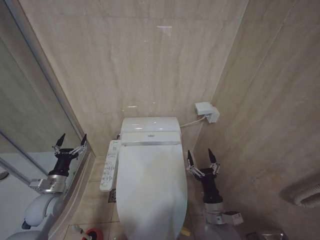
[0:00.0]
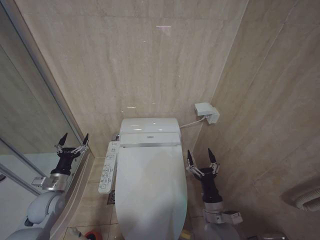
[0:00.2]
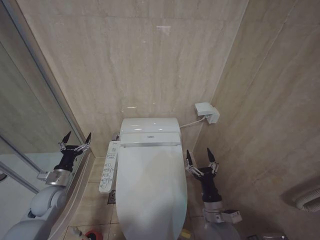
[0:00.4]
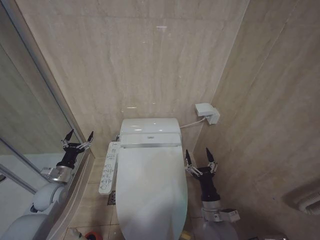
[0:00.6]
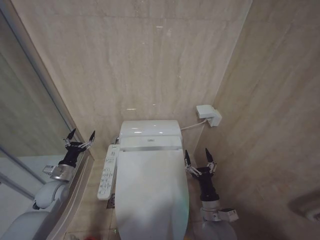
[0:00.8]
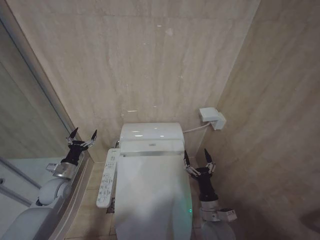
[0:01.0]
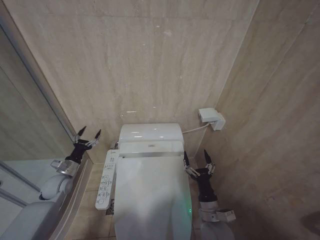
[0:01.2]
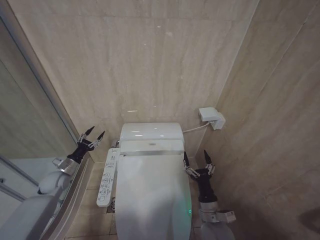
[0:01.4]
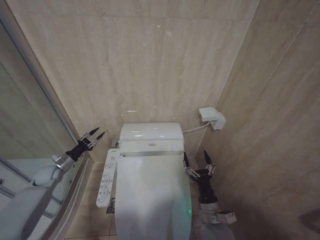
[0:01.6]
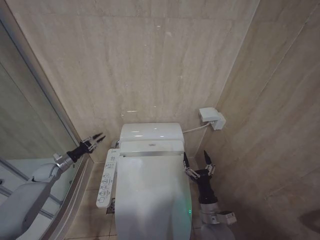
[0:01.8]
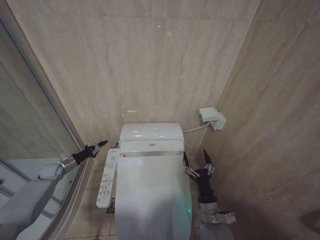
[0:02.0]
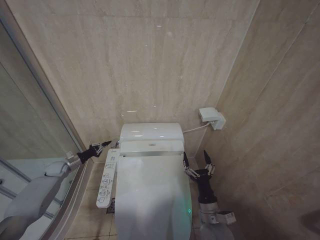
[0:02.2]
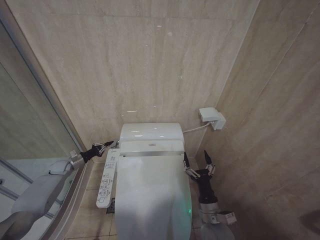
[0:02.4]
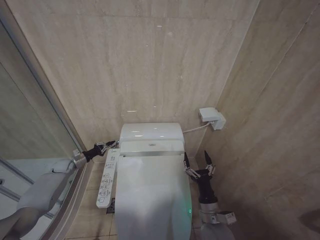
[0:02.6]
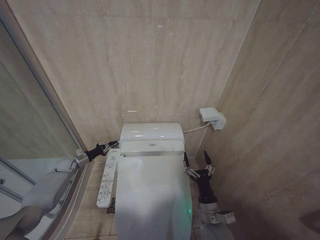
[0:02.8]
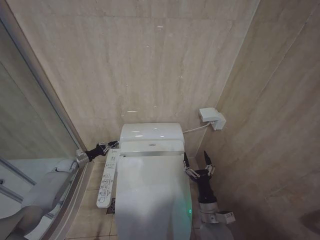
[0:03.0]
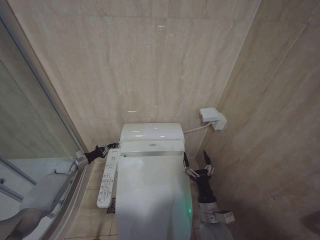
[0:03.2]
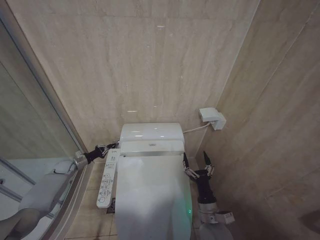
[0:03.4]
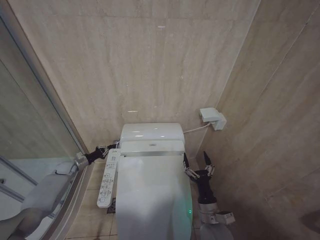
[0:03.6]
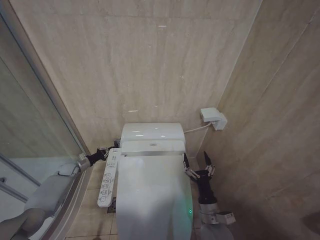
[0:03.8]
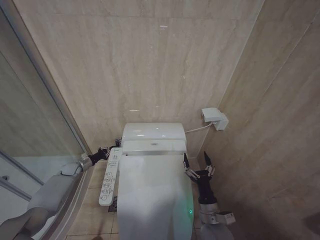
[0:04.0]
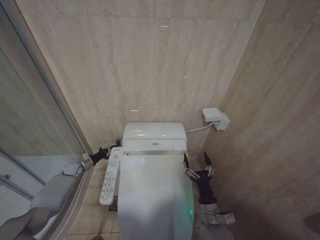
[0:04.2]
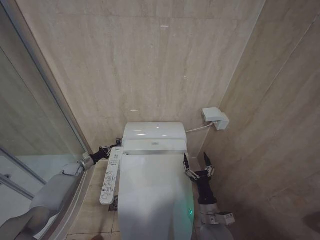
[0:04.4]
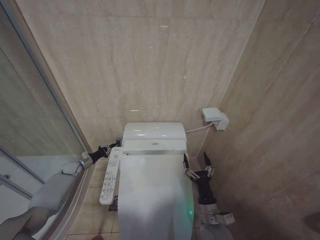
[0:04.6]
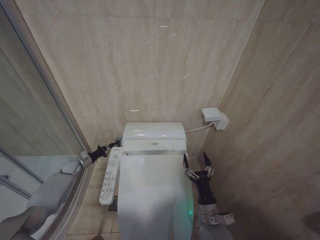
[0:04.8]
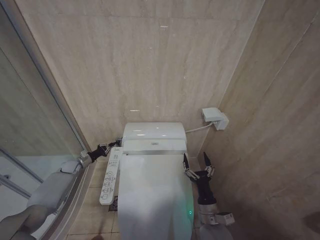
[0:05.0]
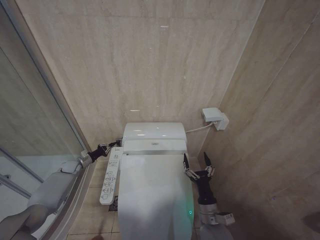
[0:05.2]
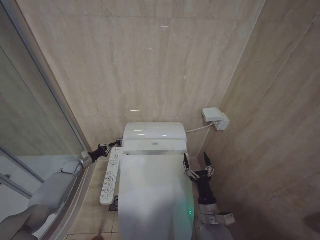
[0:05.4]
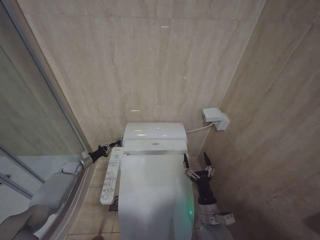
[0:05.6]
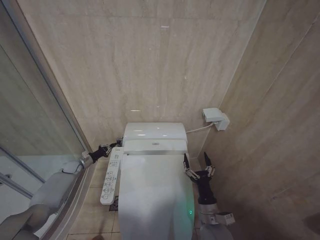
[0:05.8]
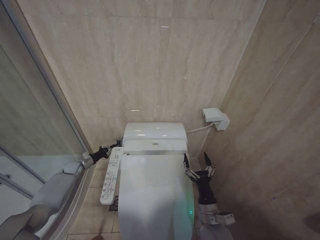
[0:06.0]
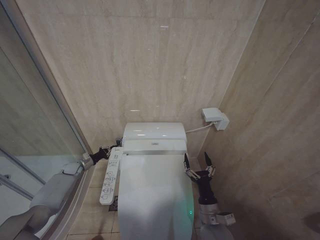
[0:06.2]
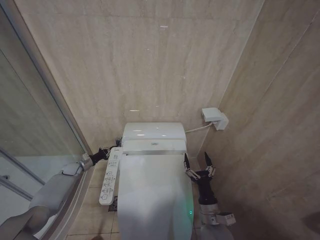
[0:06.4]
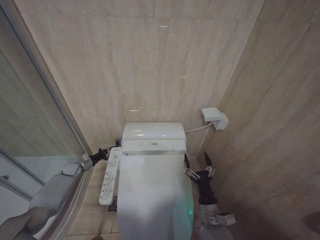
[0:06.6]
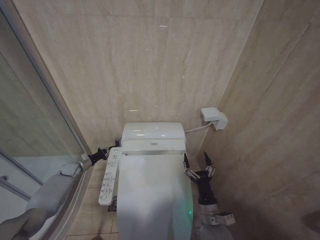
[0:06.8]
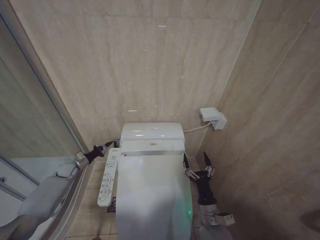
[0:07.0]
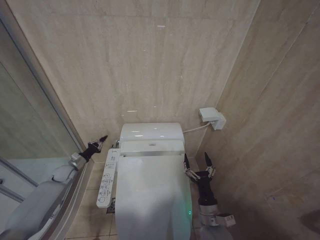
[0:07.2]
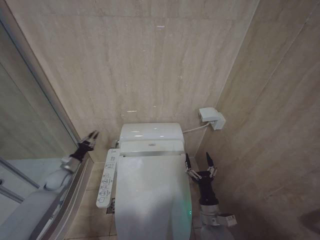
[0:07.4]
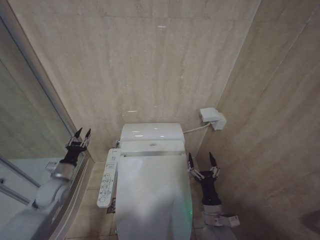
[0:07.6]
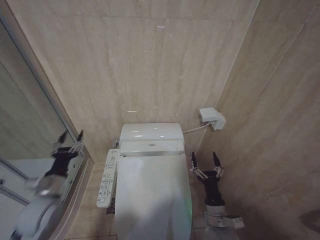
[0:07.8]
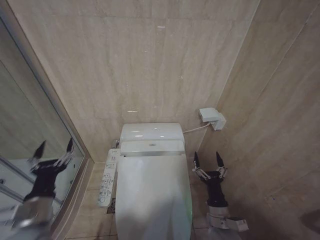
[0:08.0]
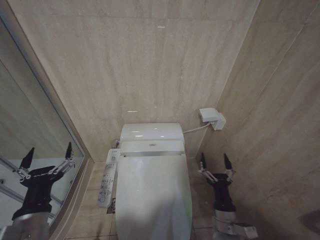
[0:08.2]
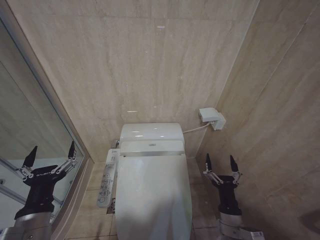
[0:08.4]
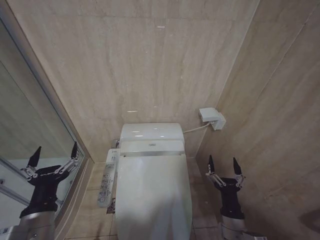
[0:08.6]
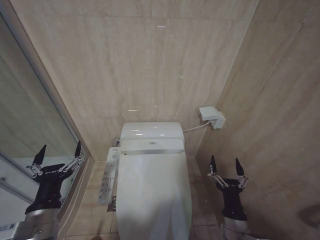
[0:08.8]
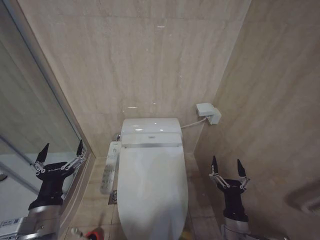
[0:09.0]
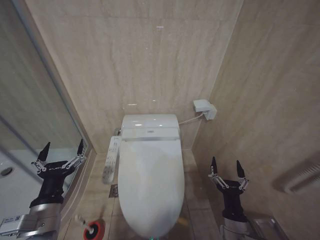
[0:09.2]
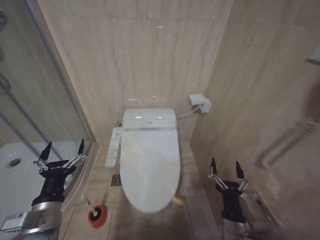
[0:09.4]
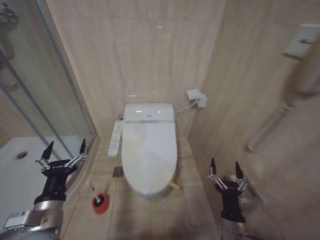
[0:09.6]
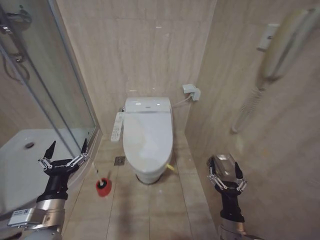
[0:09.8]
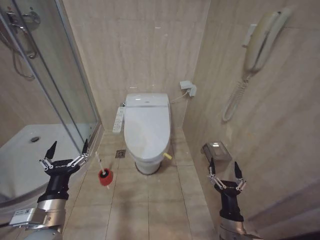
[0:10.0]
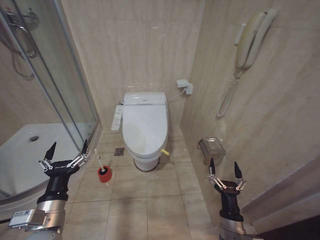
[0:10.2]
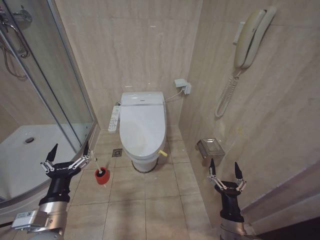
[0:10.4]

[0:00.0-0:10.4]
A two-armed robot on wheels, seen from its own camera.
Task of the whole recording: Open the toilet lid, clean the toilet bowl with a toilet brush, close the toilet lid, and flush.
0:00.0 to 0:01.4: The left gripper moves forward, some 10 cm.
0:01.4 to 0:03.0: The left gripper heads forward, covering about 10 cm, and closes.
0:03.0 to 0:04.4: The grippers stay close to where they were, moving slightly.
0:06.0 to 0:07.4: The left gripper moves backward, approximately 10 cm.
0:07.4 to 0:09.0: The right gripper heads backward, covering about 5 cm, while the left gripper heads backward, to the right and upward, covering some 35 cm, and opens.

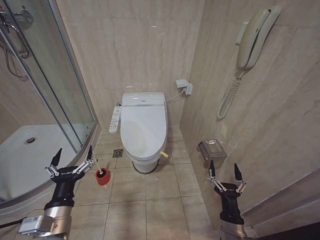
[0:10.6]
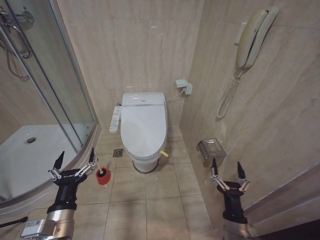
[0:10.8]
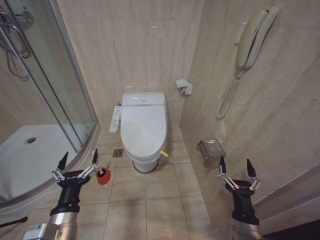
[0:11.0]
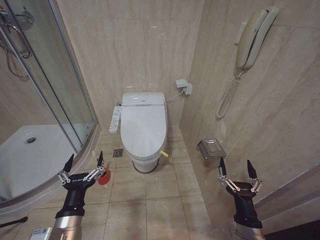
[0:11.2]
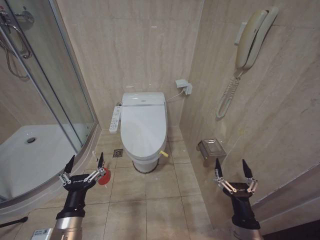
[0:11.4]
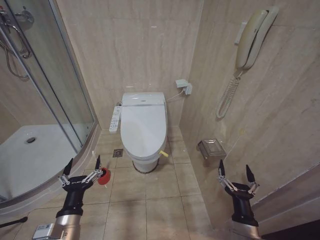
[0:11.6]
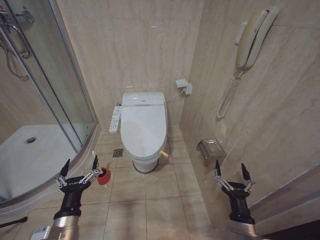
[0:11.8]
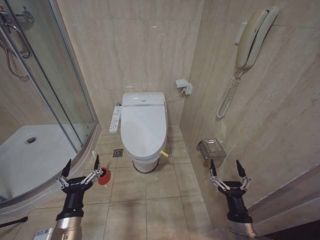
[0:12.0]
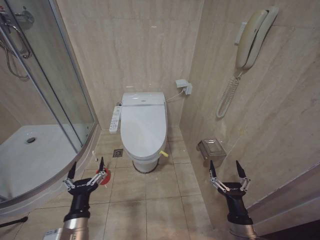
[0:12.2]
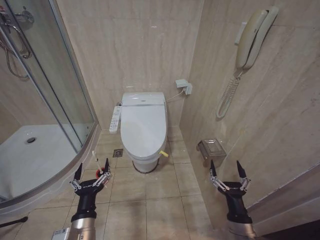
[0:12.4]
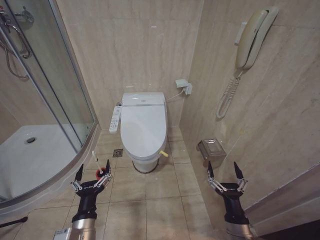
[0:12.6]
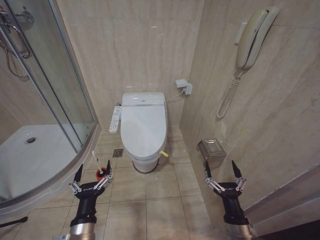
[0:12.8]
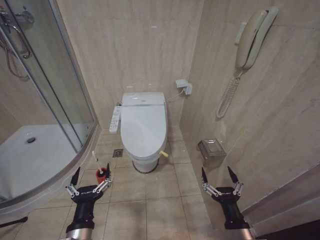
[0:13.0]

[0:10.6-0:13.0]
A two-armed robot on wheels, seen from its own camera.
Task of the whole recording: Open the toilet lid, clean the toilet bowl with a toilet brush, close the toilet lid, and flush.
0:10.6 to 0:11.8: The left gripper is displaced downward by roughly 5 cm.
0:11.8 to 0:13.0: The left gripper heads to the right, covering about 5 cm.
